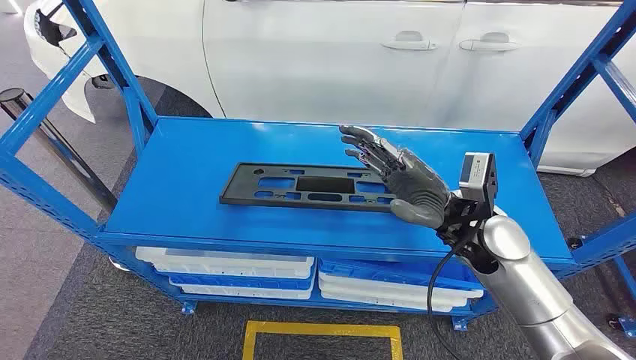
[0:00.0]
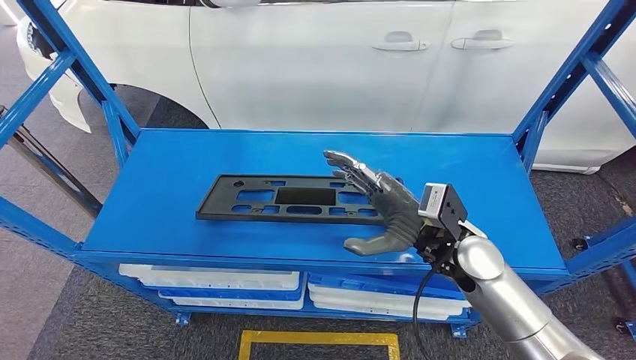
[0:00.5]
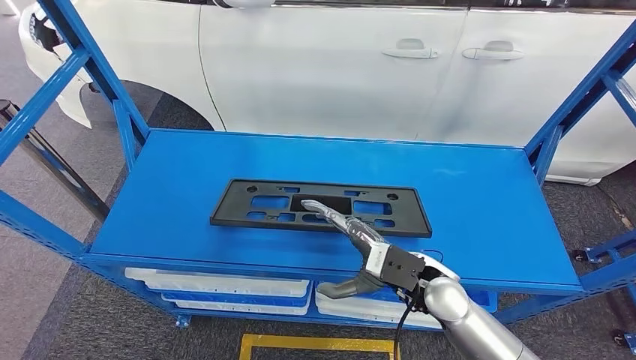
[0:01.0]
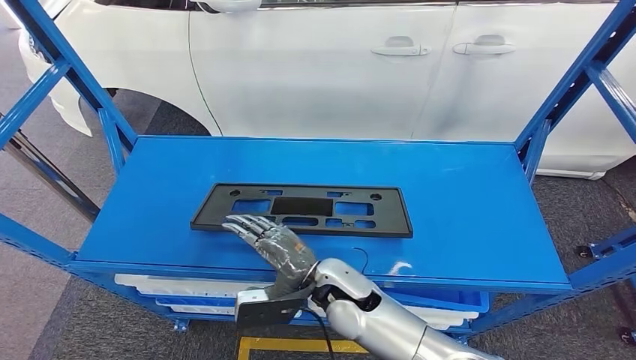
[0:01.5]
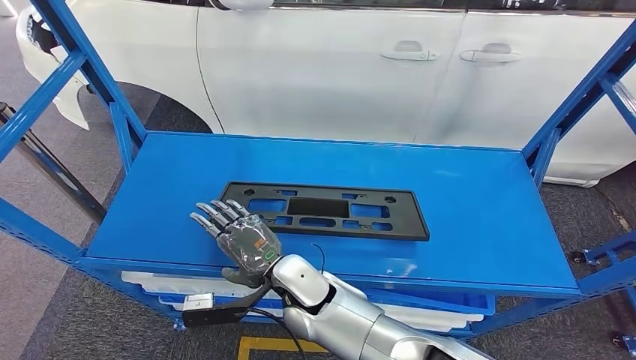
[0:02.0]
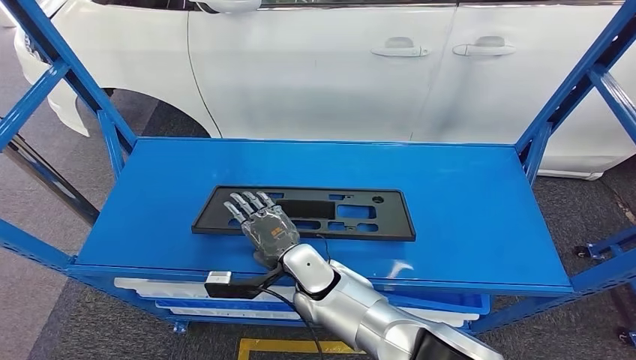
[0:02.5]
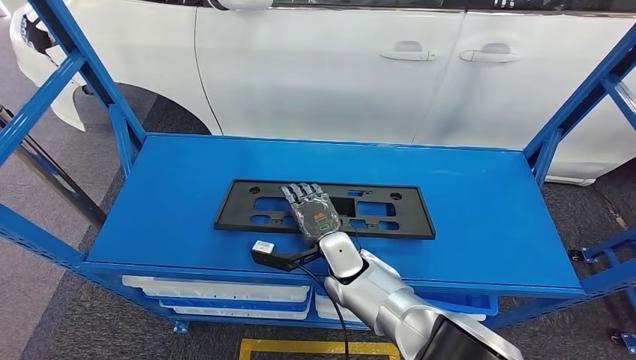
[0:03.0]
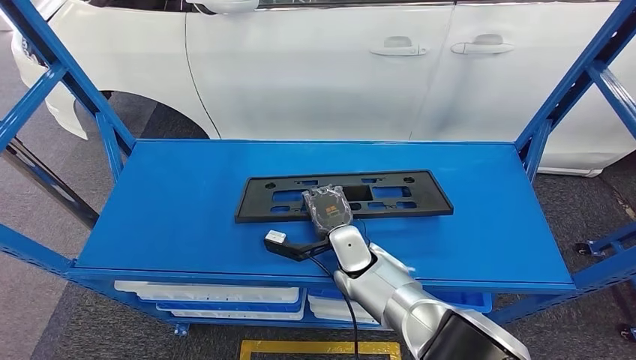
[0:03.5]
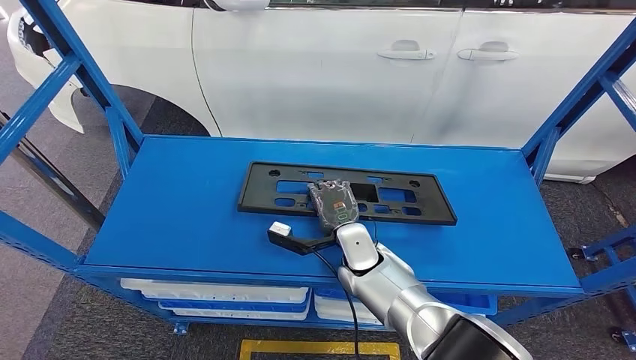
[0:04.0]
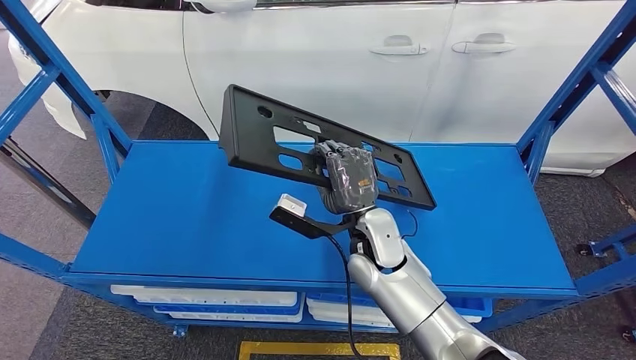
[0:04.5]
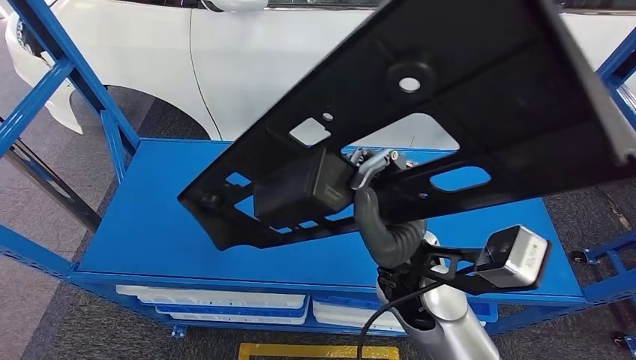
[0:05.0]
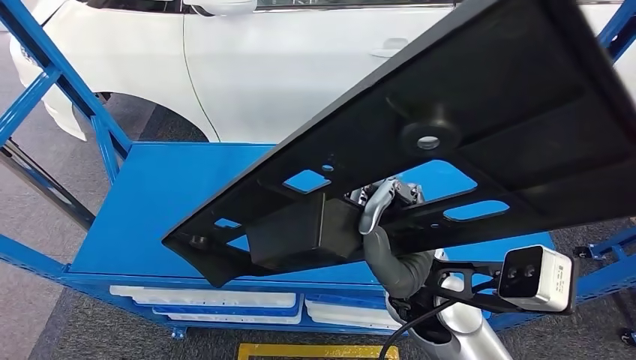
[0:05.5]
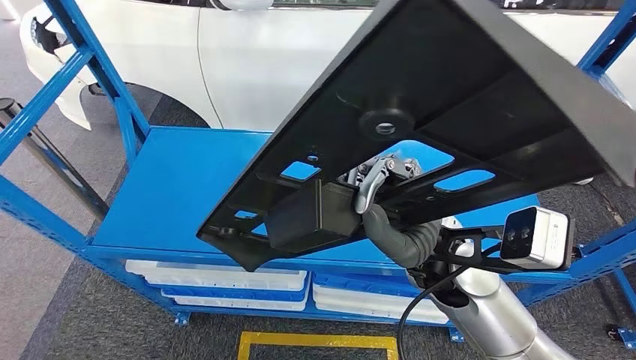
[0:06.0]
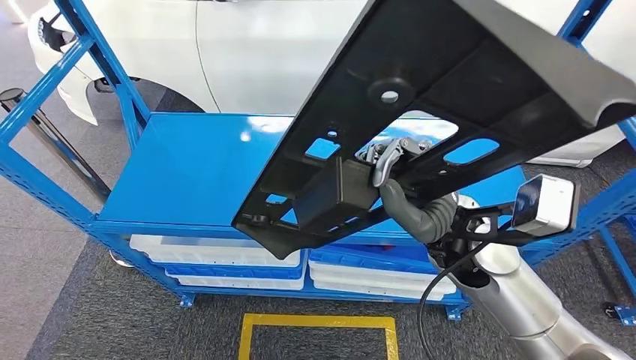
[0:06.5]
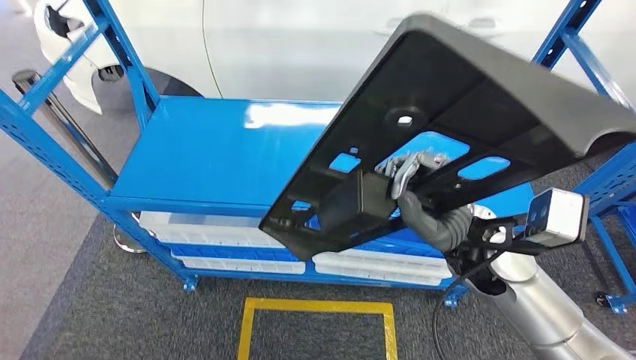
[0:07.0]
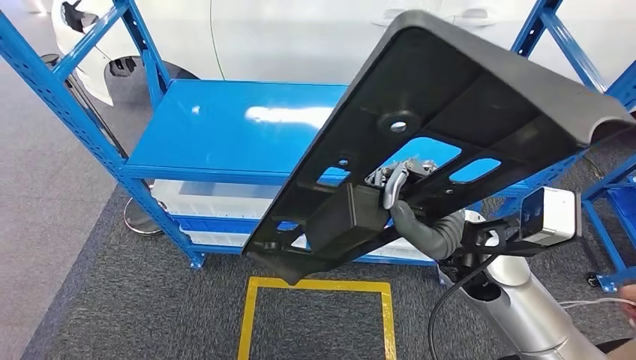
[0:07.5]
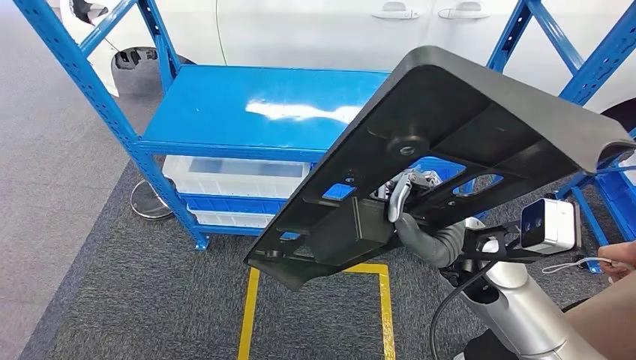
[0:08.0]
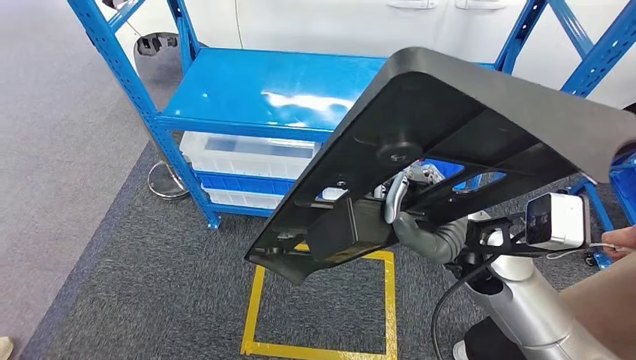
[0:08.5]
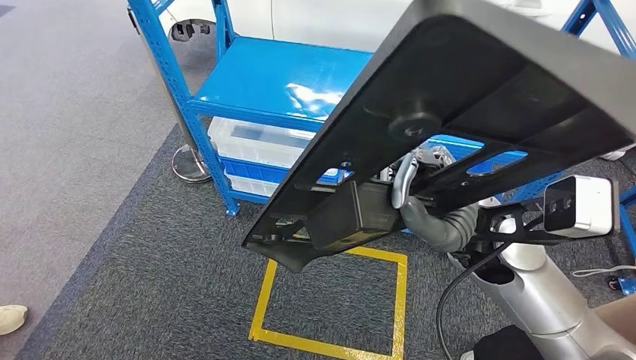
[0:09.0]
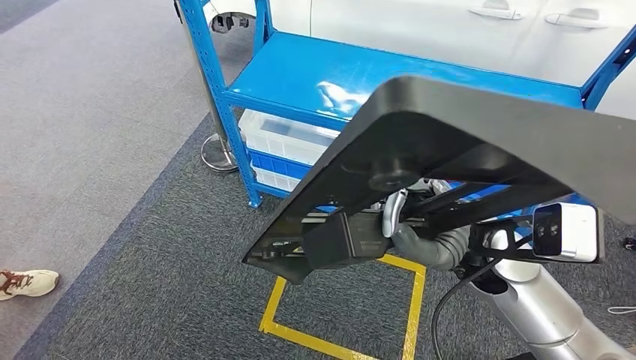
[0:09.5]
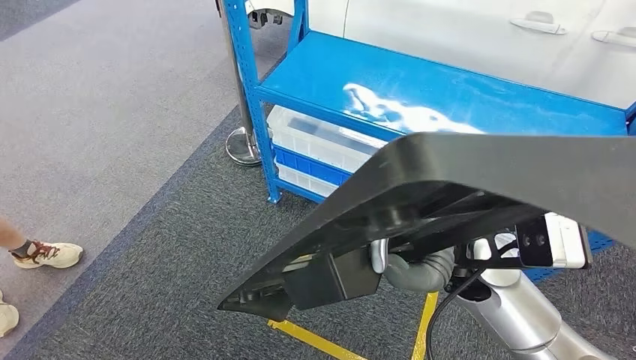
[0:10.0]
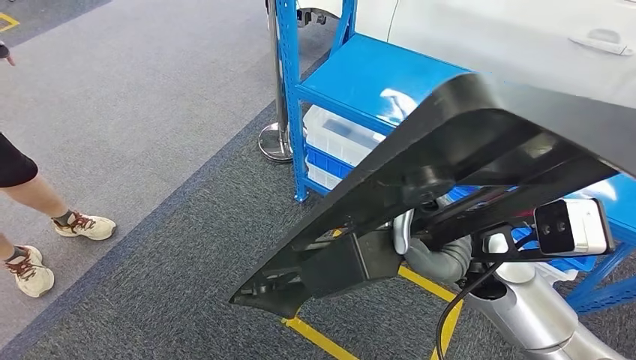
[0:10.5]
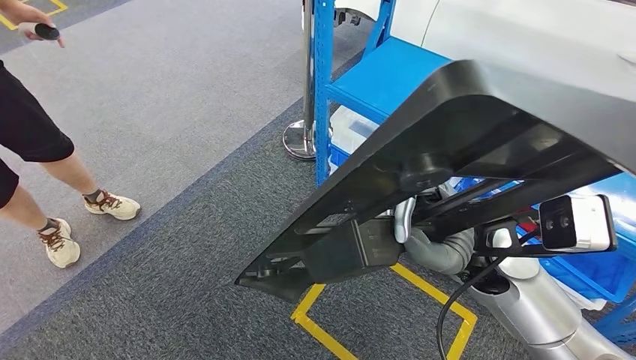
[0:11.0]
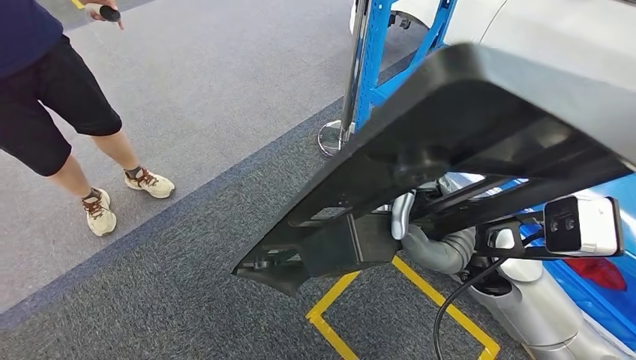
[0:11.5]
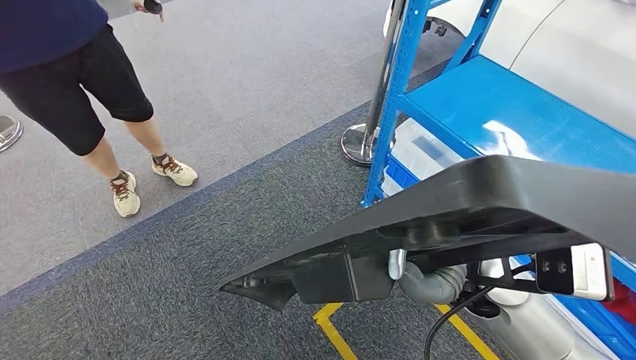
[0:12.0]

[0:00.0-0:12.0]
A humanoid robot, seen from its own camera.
Step, 0:00.0 to 0:05.0: Pick up the small component from the shelf.

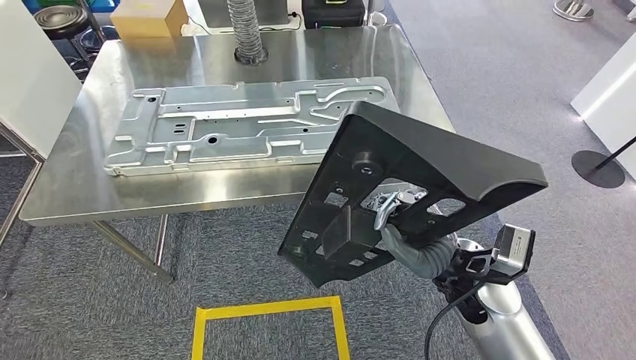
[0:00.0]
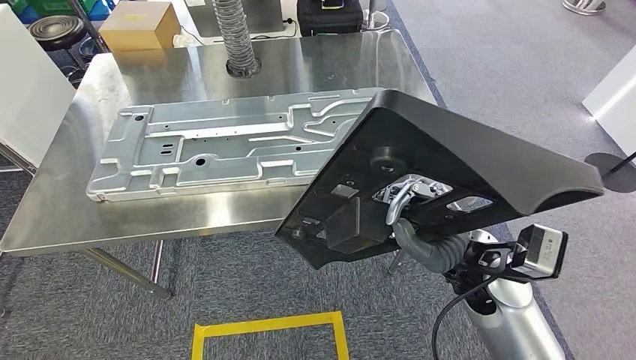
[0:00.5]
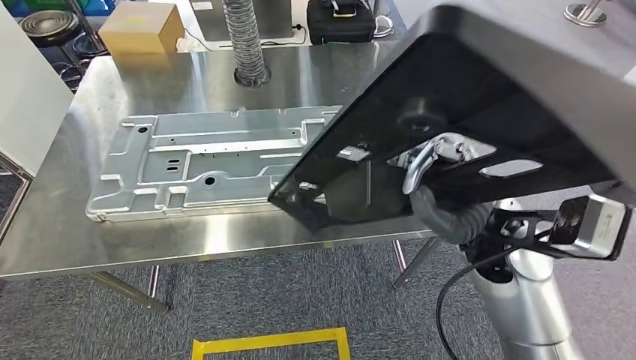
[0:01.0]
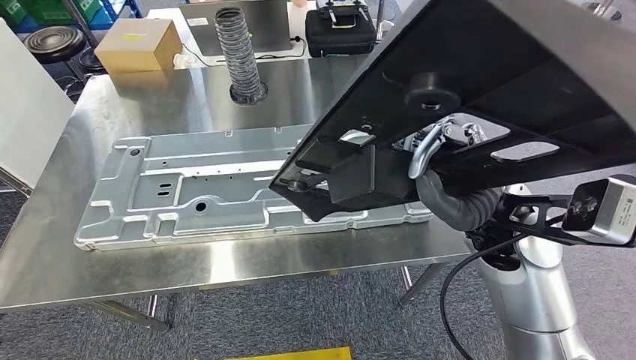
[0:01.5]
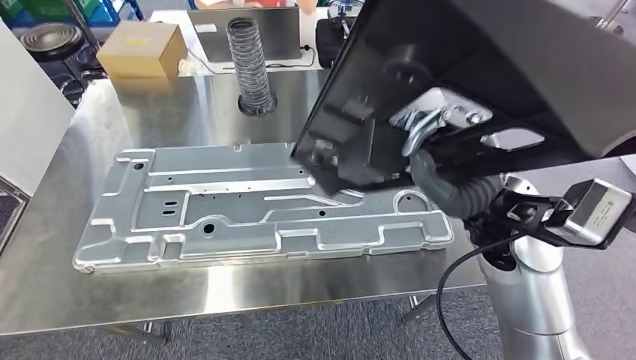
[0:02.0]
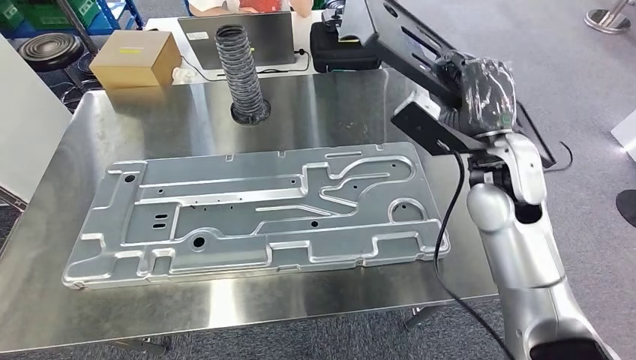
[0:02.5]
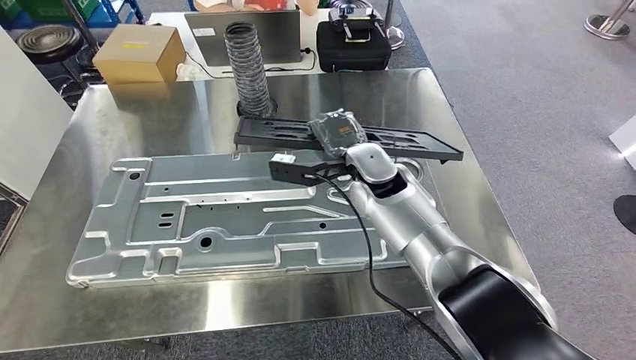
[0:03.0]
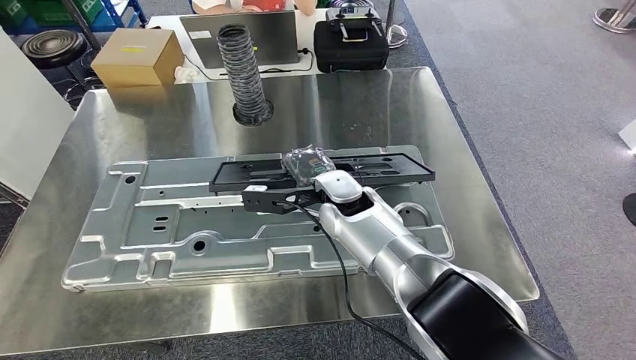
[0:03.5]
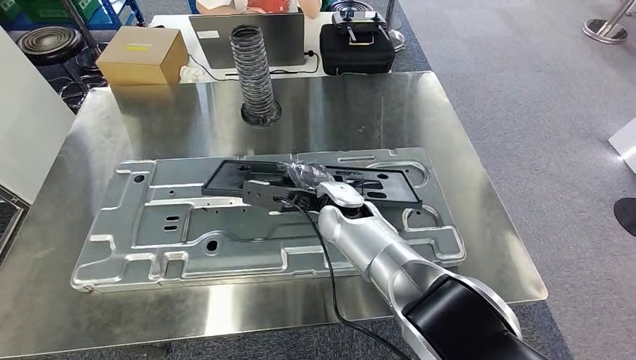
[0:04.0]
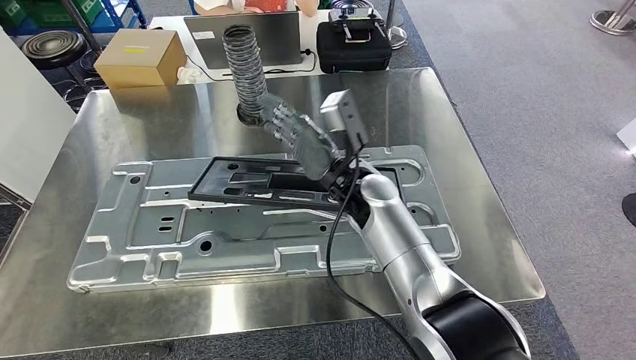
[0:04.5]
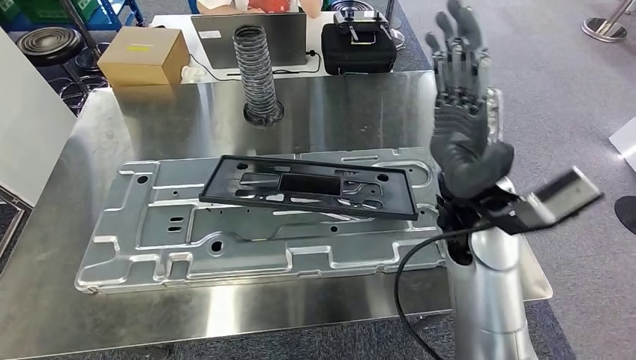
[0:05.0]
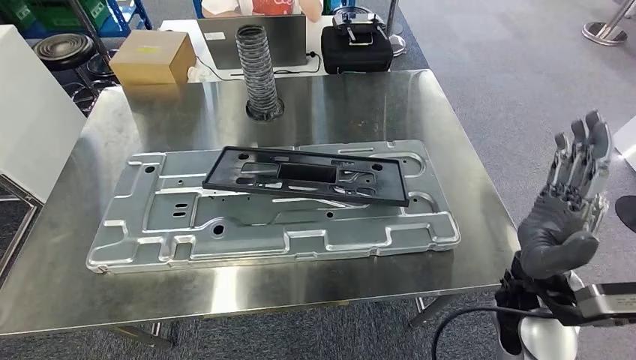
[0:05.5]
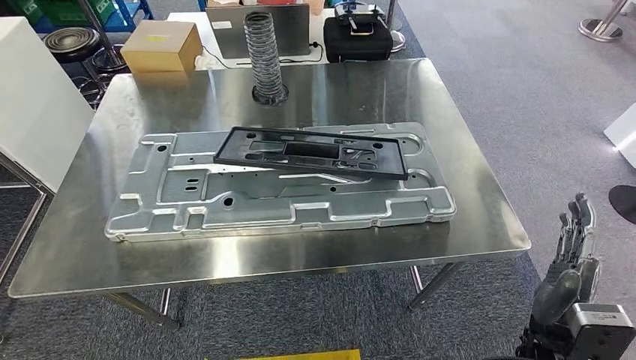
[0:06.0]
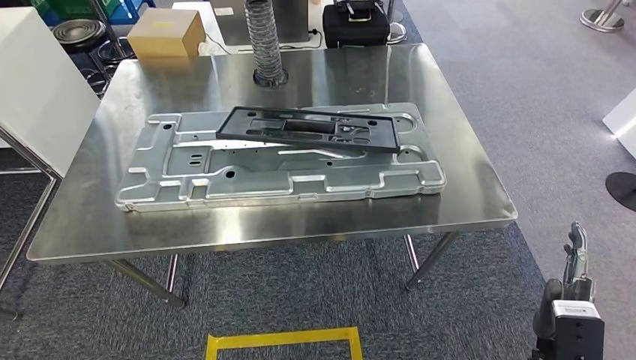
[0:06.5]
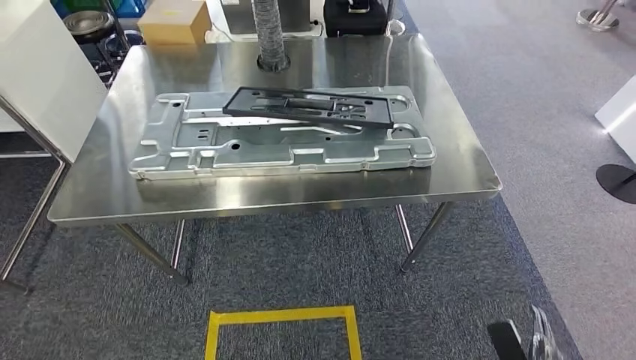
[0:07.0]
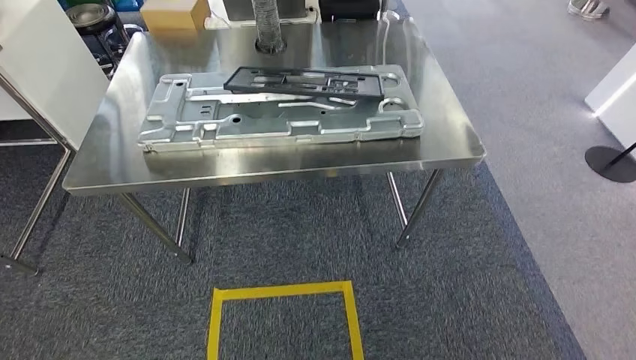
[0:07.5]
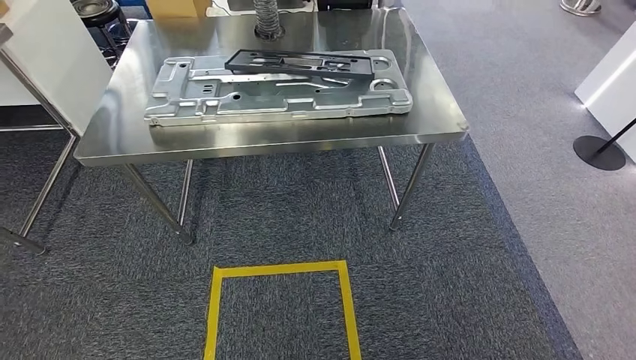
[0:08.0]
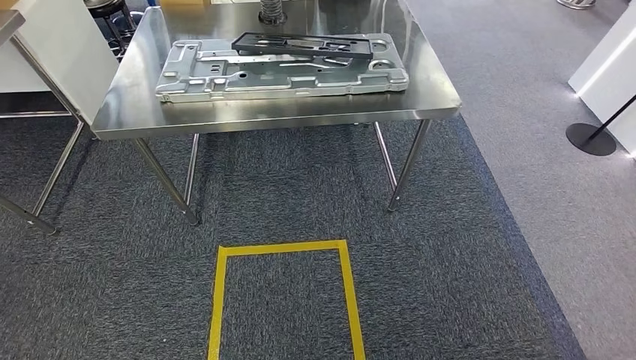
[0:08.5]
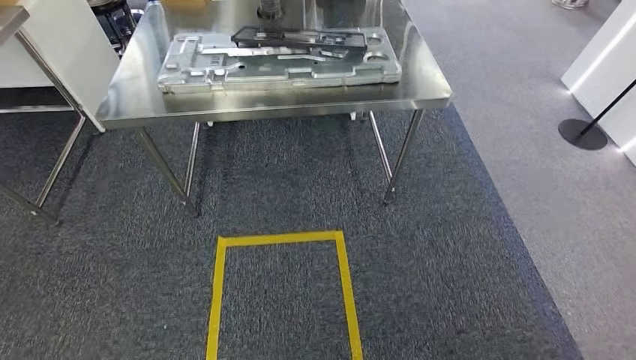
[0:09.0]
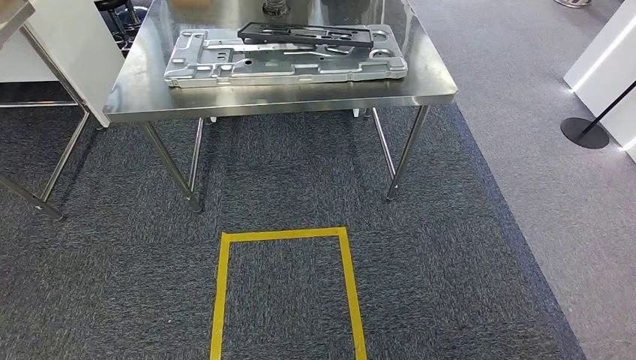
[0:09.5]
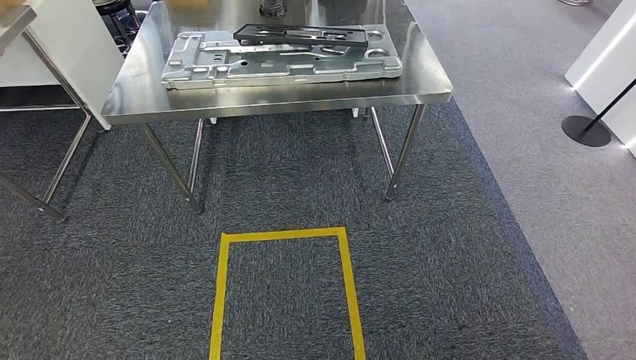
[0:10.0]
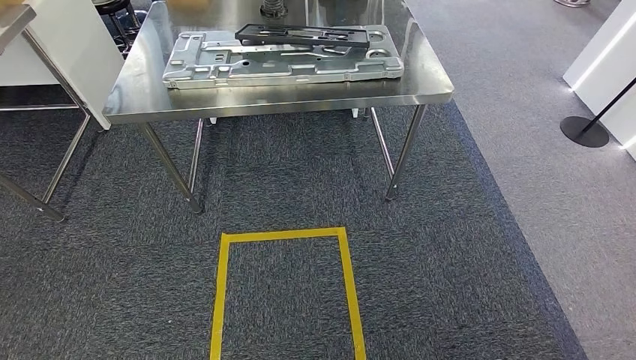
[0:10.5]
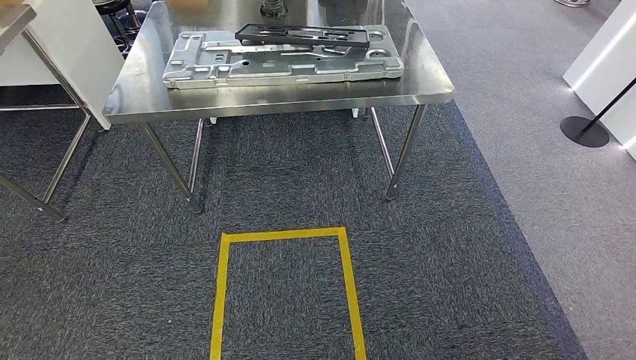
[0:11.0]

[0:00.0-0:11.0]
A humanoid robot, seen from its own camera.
Step, 0:02.0 to 0:04.5: Insert the small component into the corresponding slot on the workbench.
Step, 0:05.0 to 0:11.0: Return to the initial position at the workbench.
